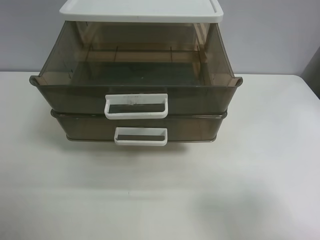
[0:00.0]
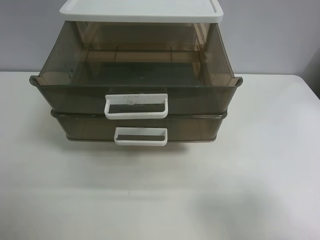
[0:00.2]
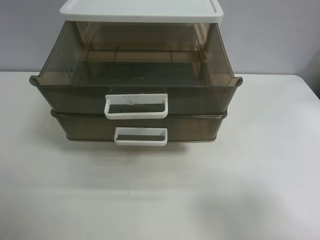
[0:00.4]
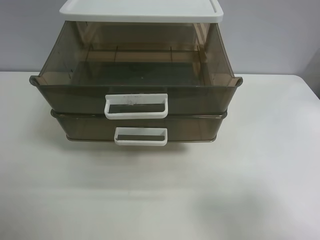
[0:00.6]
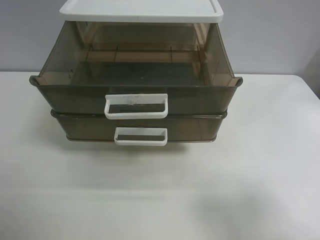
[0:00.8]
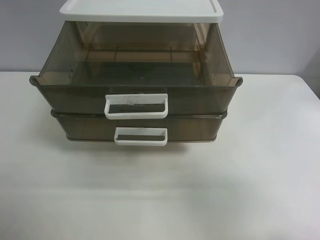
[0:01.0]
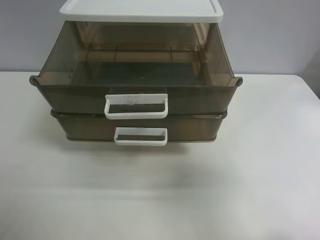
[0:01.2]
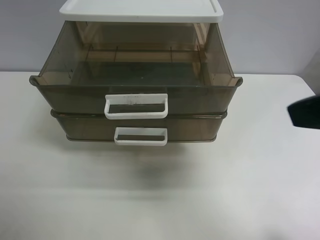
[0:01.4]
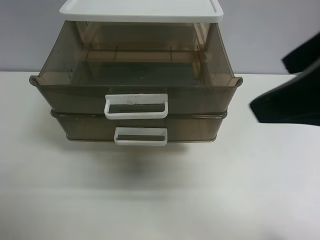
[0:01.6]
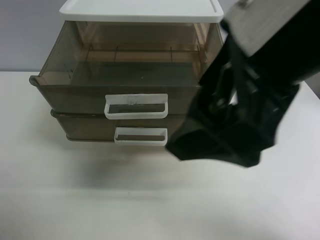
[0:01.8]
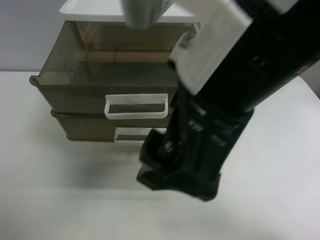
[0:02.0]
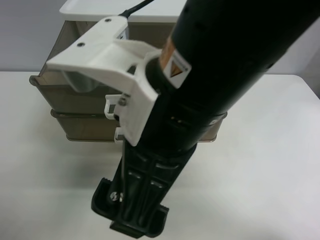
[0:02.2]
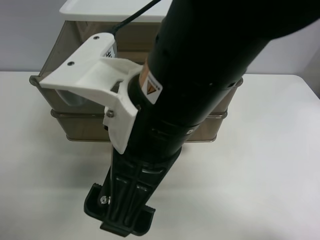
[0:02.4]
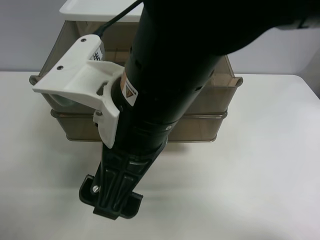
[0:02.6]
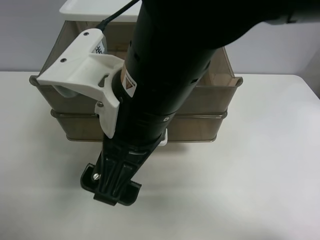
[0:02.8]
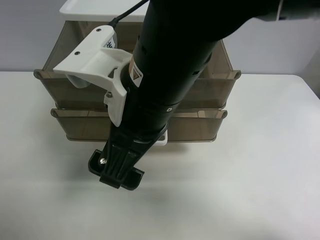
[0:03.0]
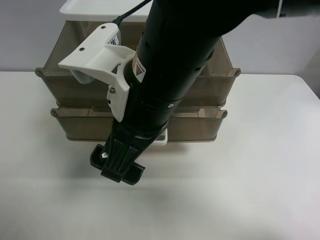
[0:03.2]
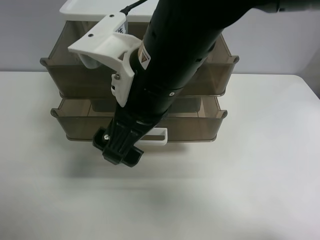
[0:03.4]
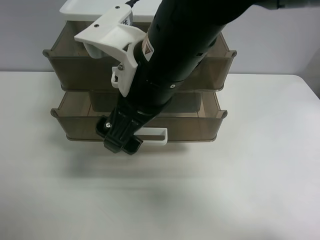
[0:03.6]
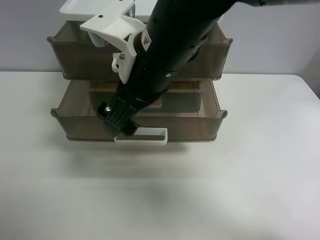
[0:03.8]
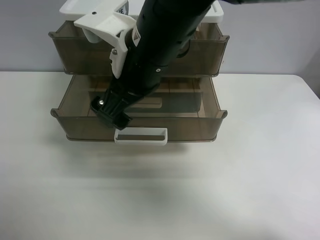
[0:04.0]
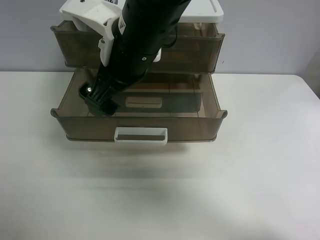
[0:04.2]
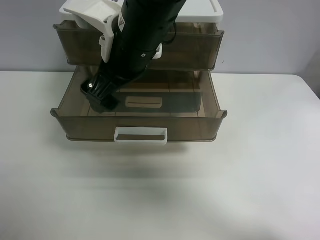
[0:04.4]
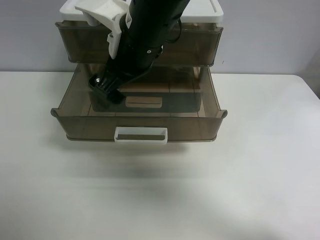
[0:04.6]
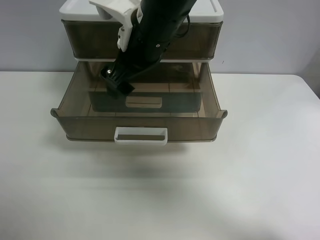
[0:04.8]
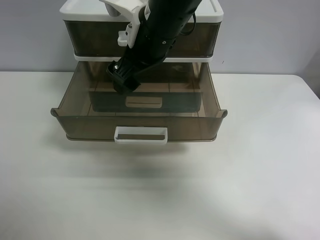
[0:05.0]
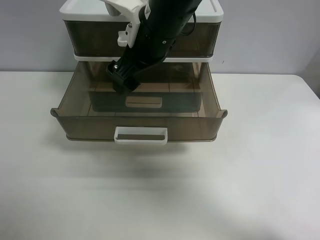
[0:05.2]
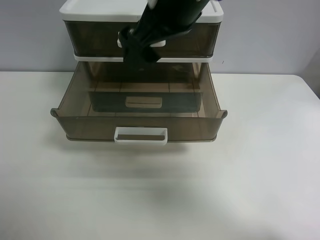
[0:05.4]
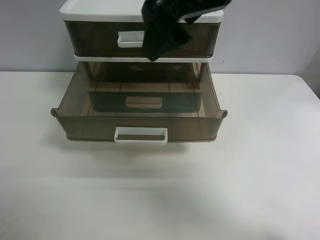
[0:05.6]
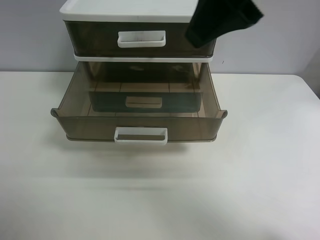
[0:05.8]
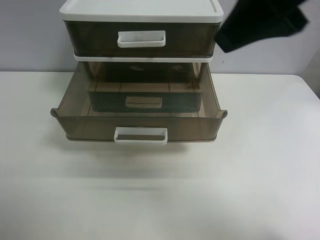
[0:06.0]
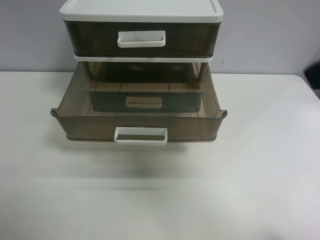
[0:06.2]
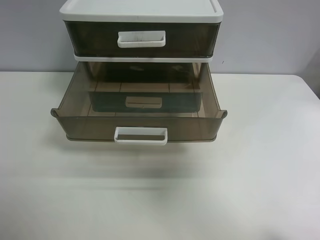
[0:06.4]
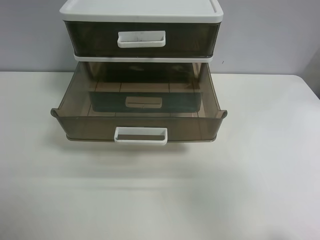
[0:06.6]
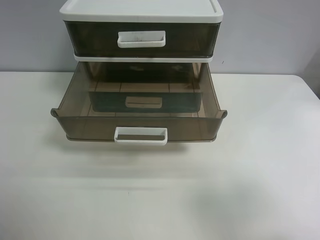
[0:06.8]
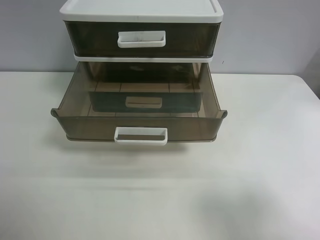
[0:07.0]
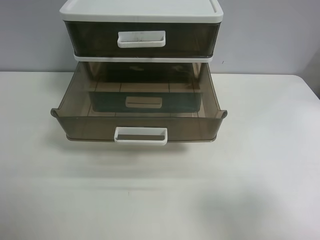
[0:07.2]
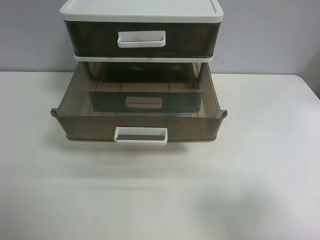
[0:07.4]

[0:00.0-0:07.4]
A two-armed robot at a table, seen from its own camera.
Task of the whole recording: close the top drawer.
Step, 0:00.0 to 0:02.8: Use the right gripper to touch the topmost layer of the storage cabinet.
Step, 0:03.0 to 0:04.8: Push the top drawer closed.
0:00.0 to 0:01.4: The right gripper moves forward, upward and to the left, about 15 cm.
0:01.4 to 0:03.0: The right gripper travels to the left and downward by some 25 cm.
0:03.0 to 0:04.4: The right gripper is displaced forward by approximately 10 cm.
0:04.4 to 0:06.0: The right gripper is displaced to the right, upward and backward by about 25 cm.
0:06.0 to 0:07.4: The right gripper goes approximately 25 cm backward, downward and to the right.
